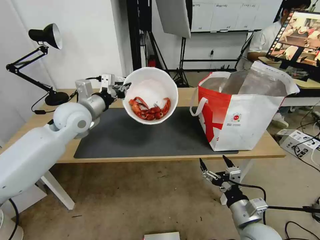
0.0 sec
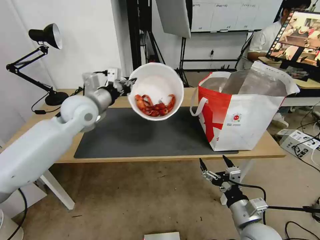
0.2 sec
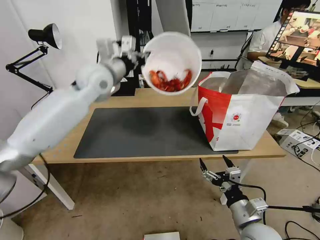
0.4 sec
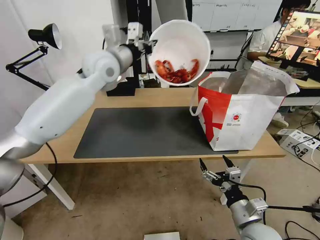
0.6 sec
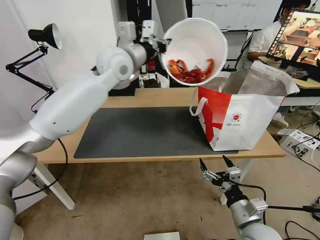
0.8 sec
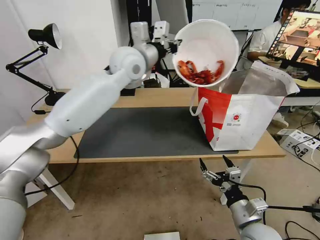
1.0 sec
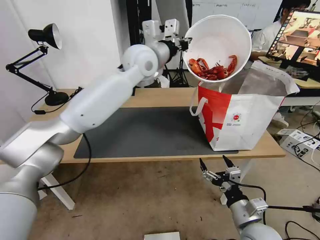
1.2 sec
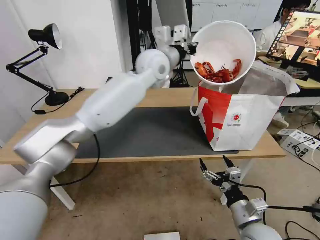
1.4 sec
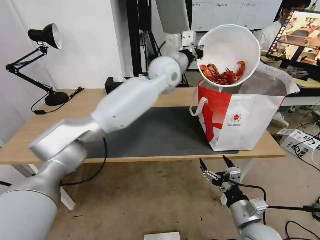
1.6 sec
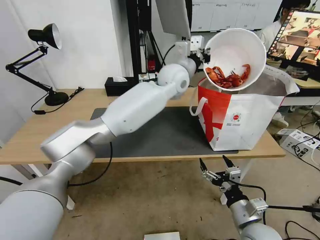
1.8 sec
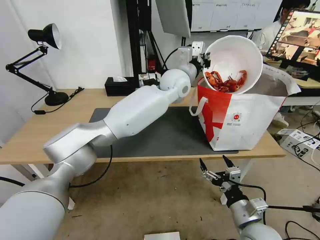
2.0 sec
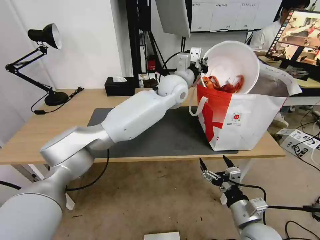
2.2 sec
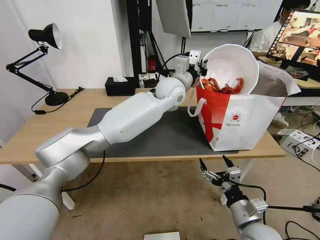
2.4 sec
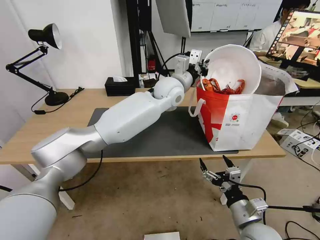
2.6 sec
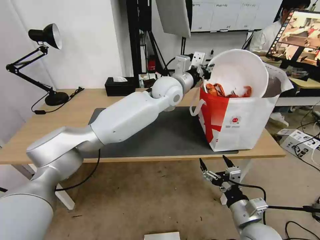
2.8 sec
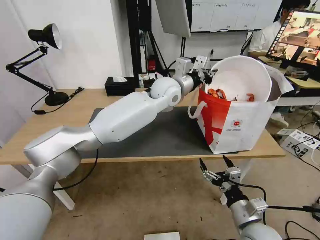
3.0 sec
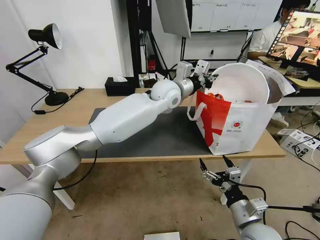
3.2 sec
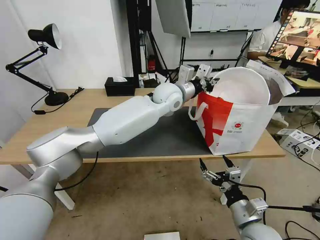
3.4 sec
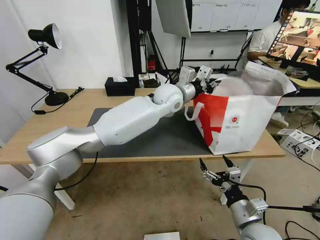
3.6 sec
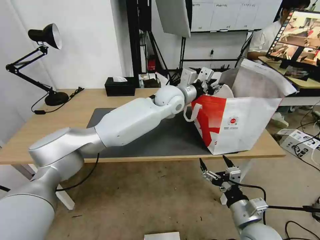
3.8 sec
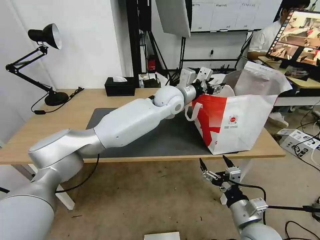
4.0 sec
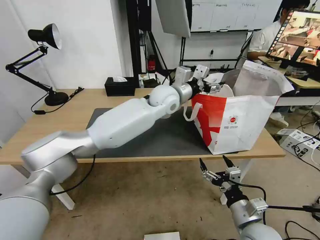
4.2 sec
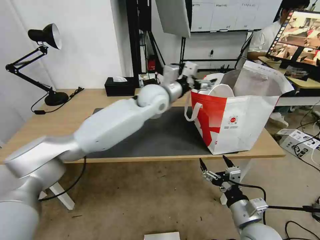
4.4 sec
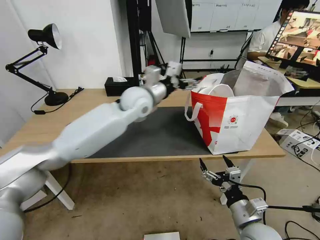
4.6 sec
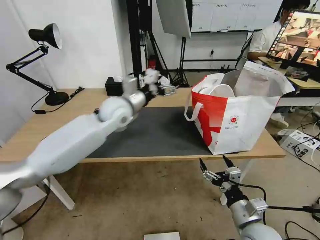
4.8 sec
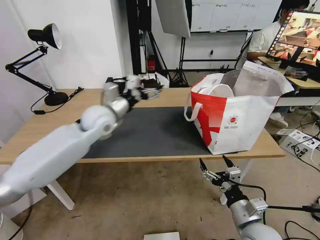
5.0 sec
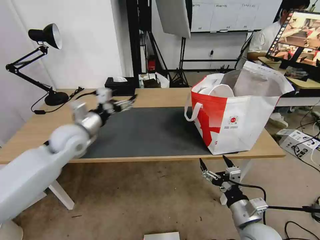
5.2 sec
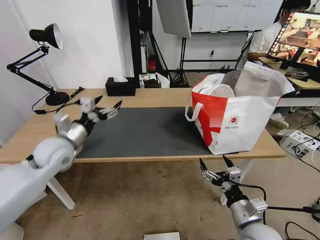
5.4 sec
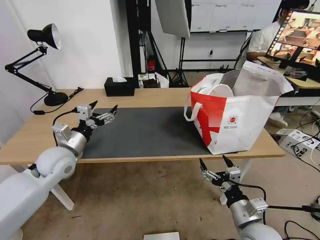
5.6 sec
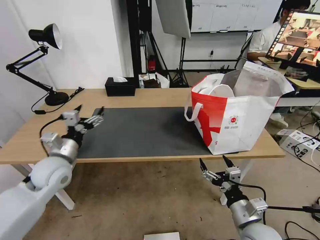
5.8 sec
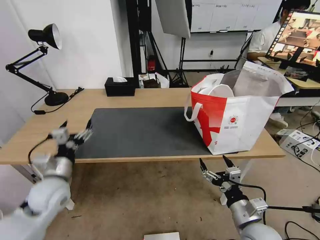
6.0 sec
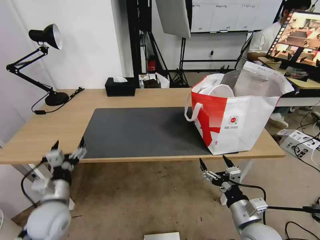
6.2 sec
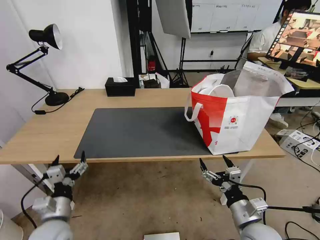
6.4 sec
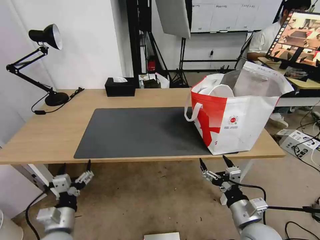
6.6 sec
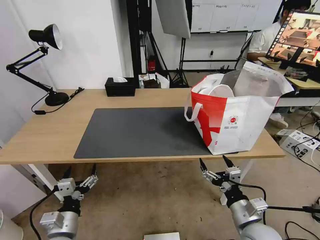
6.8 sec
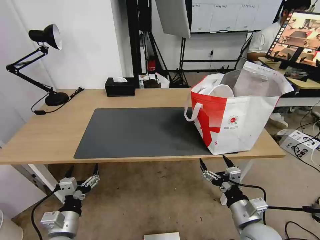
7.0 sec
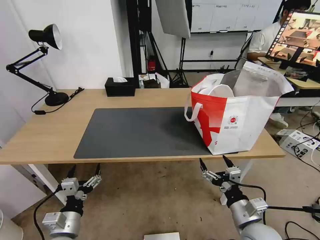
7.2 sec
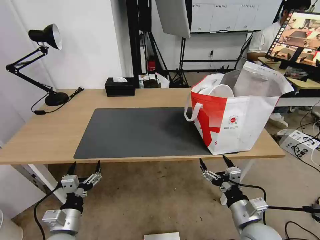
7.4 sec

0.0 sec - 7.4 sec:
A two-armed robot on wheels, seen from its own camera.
Task of the whole recording: Pick up the trash from the table and place it into the takeout bag.
0.0 sec - 1.4 sec: The left gripper heads to the right, upward and forward, covering approximately 25 cm.
1.4 sec - 3.0 sec: The left gripper heads downward, covering some 10 cm.
3.0 sec - 4.4 sec: The left gripper changes place by roughly 5 cm, and opens its fingers.
4.4 sec - 6.0 sec: The left gripper travels to the left, backward and downward by roughly 40 cm.
6.0 sec - 7.4 sec: The left gripper shifts some 15 cm backward and downward.
